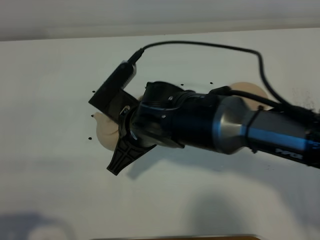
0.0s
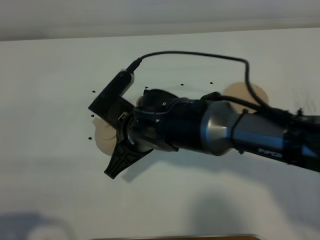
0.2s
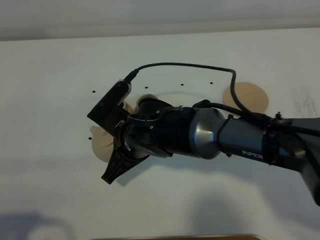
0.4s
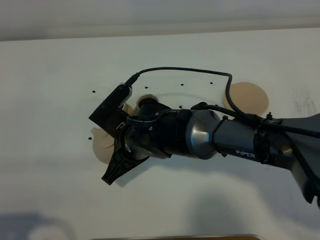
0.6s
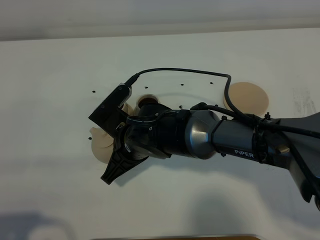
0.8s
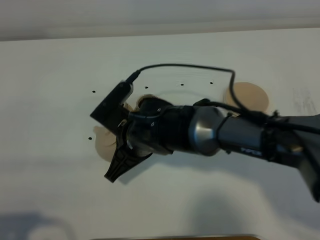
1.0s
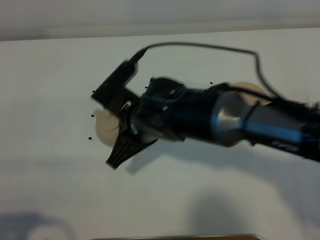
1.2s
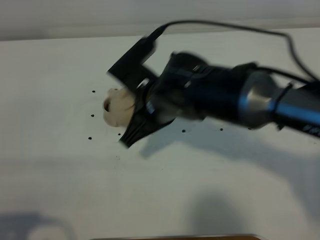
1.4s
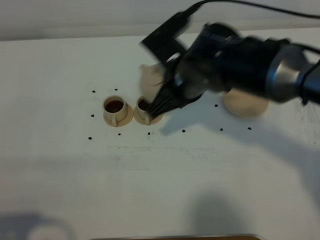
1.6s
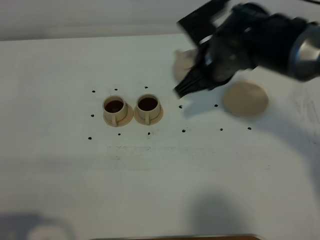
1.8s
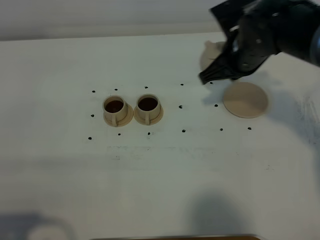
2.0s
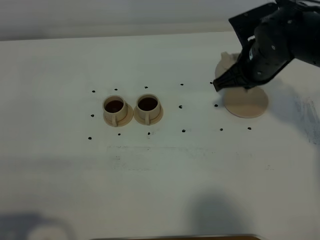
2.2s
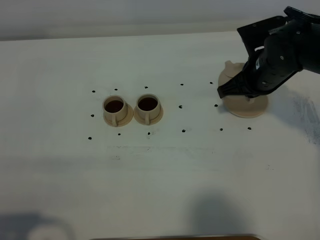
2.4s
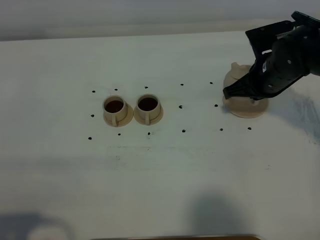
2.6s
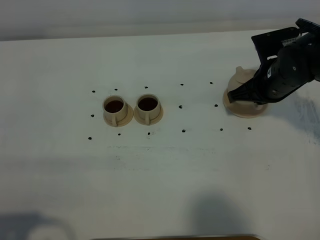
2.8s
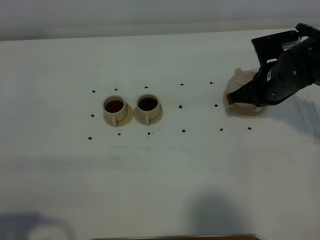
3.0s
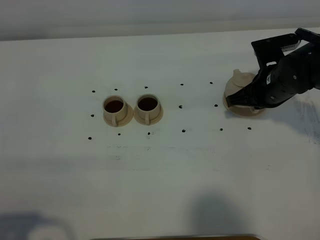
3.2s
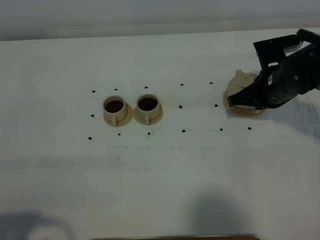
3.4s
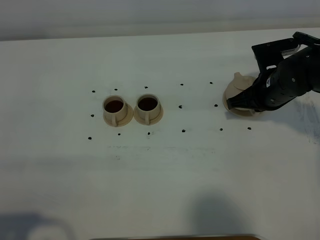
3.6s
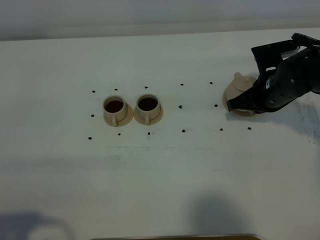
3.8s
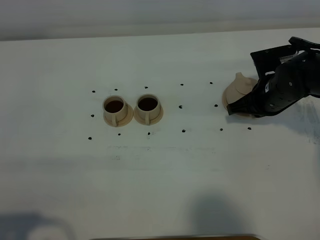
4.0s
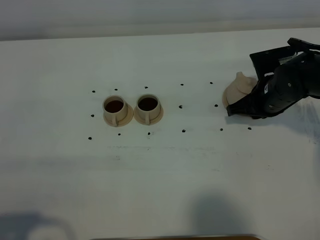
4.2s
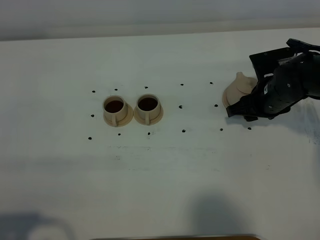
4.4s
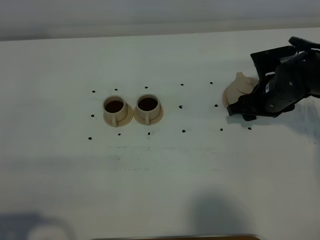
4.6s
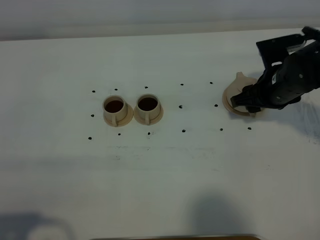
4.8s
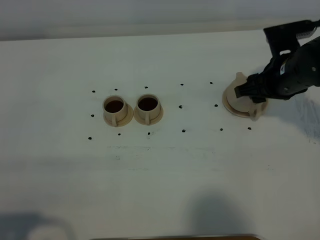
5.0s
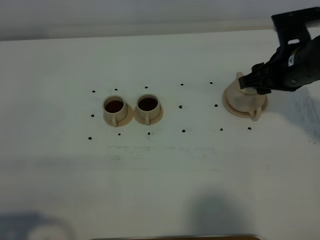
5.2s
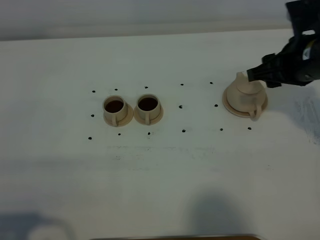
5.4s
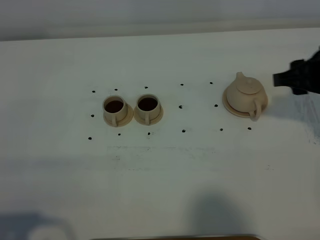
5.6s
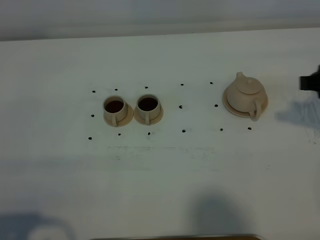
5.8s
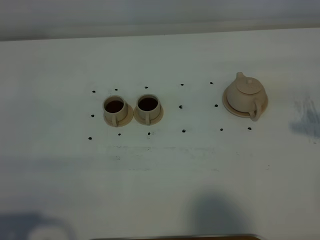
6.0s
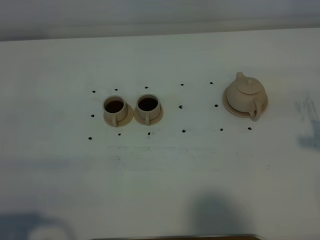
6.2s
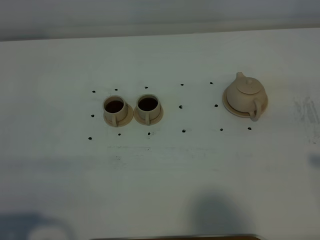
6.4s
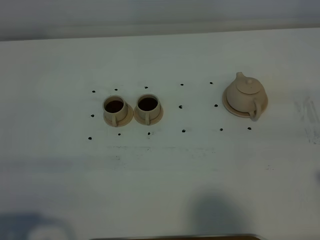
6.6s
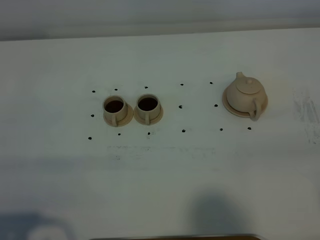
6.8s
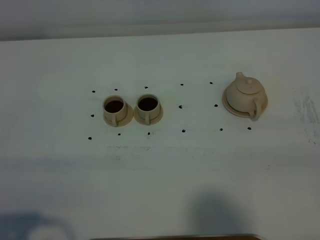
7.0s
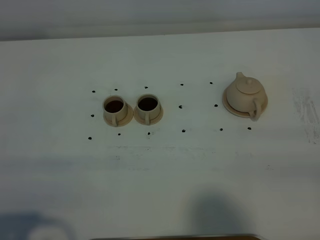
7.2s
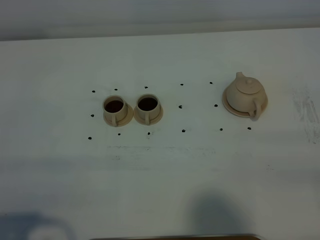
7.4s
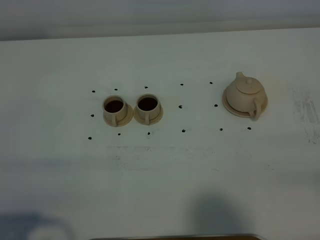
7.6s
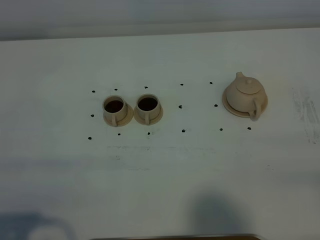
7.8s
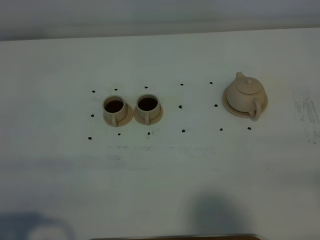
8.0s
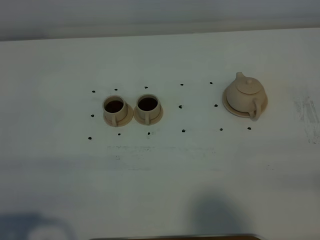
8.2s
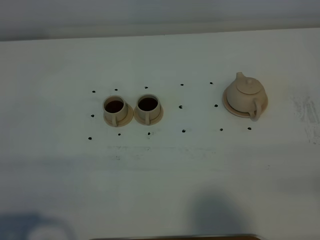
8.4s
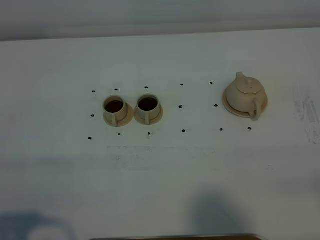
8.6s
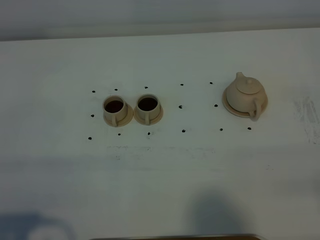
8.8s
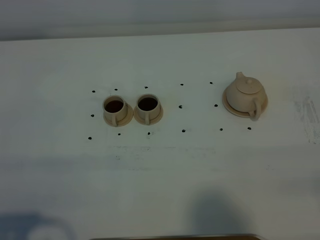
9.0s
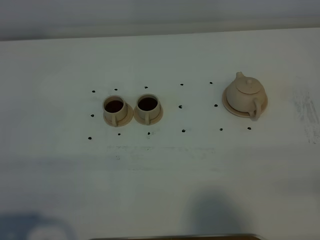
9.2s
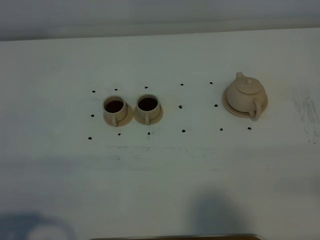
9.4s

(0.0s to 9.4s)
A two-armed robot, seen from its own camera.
Task of the whole recording: grasp the brown teapot and pour the tea into the two brown teacups one by one, put the brown teapot back in its original place.
0.0s - 1.6s: The right gripper moves to the right and forward, some 10 cm.
1.6s - 3.2s: The right gripper moves to the right and downward, approximately 15 cm.
3.2s - 4.8s: The right gripper opens up.
4.8s - 6.2s: The right gripper shifts about 25 cm backward, upward and to the right.
